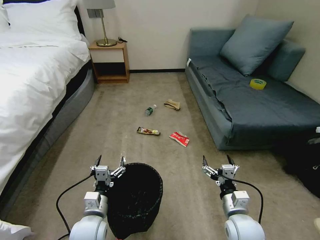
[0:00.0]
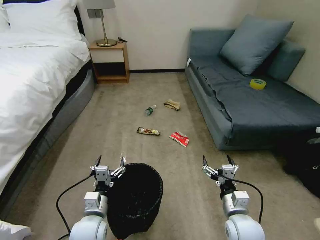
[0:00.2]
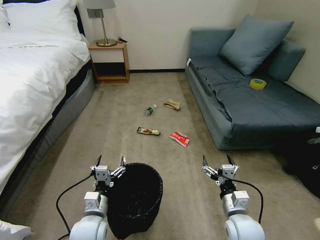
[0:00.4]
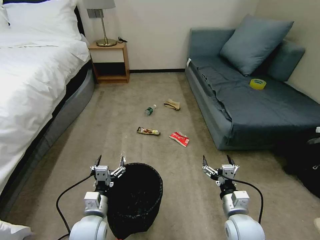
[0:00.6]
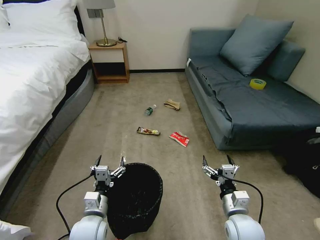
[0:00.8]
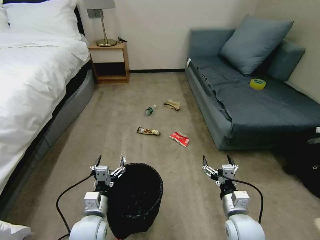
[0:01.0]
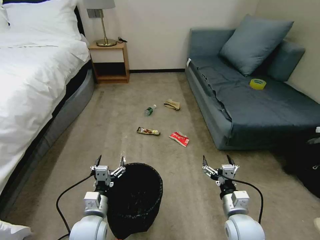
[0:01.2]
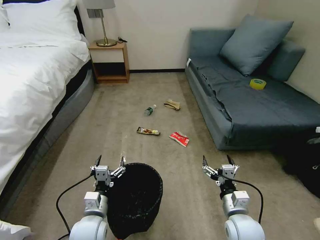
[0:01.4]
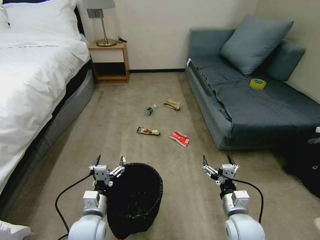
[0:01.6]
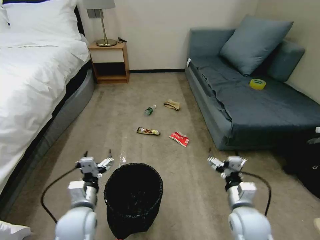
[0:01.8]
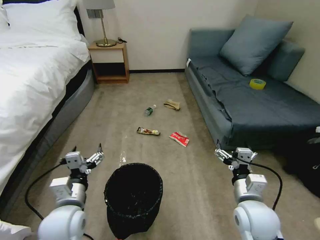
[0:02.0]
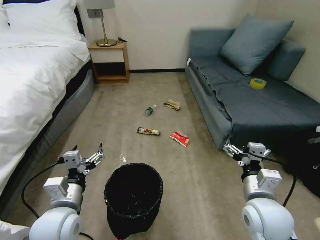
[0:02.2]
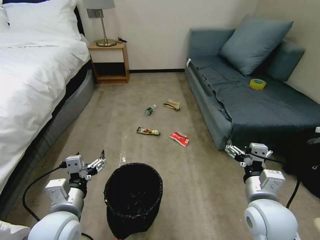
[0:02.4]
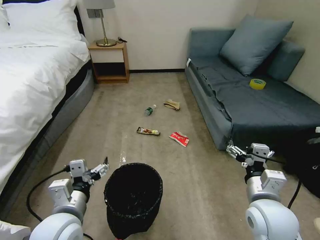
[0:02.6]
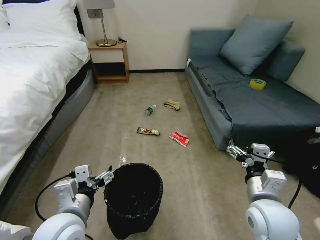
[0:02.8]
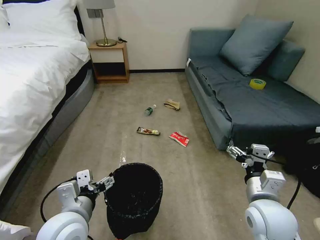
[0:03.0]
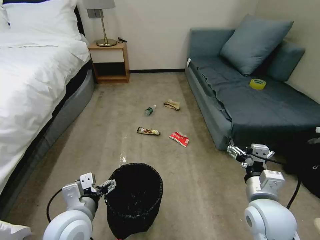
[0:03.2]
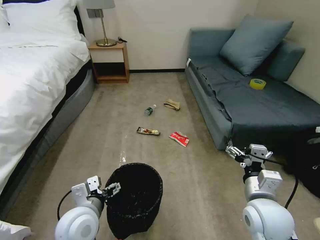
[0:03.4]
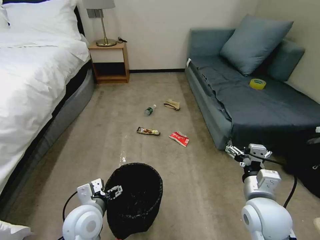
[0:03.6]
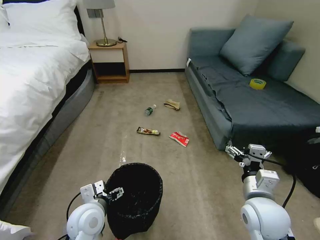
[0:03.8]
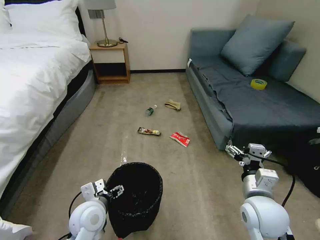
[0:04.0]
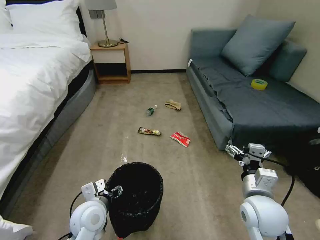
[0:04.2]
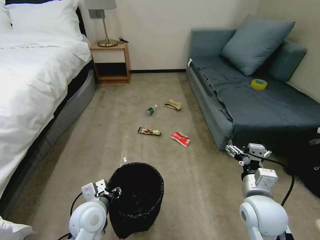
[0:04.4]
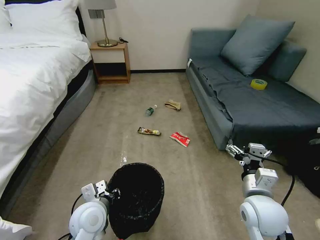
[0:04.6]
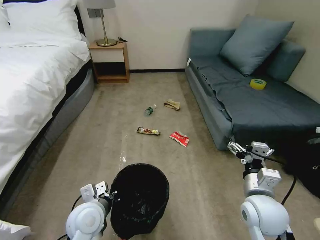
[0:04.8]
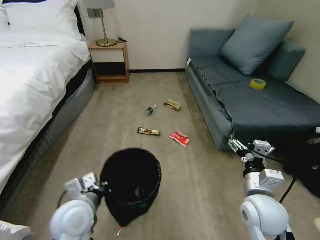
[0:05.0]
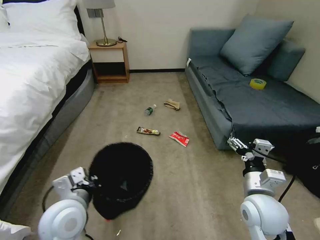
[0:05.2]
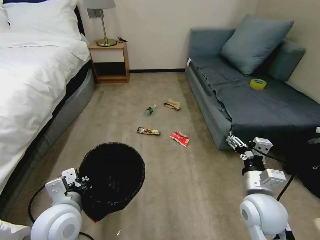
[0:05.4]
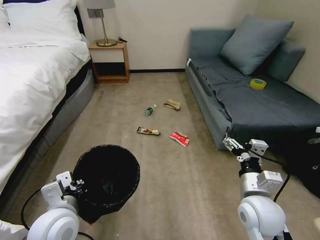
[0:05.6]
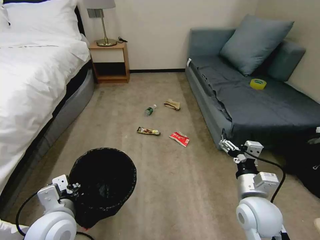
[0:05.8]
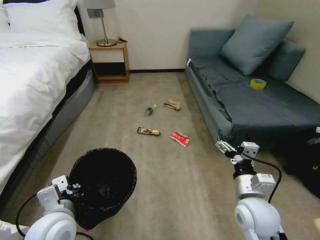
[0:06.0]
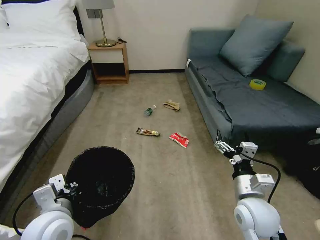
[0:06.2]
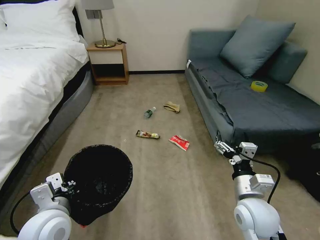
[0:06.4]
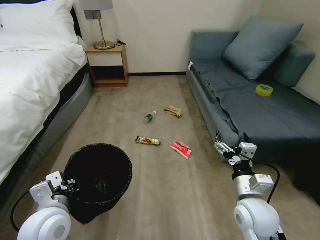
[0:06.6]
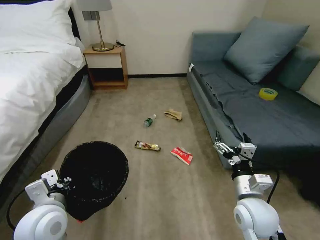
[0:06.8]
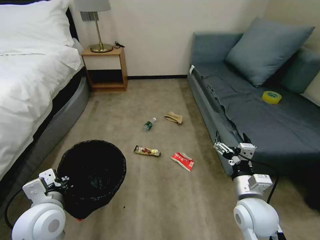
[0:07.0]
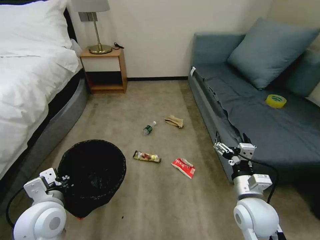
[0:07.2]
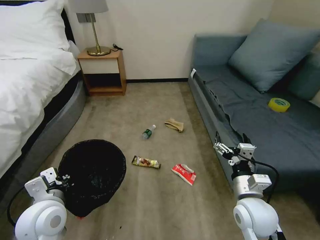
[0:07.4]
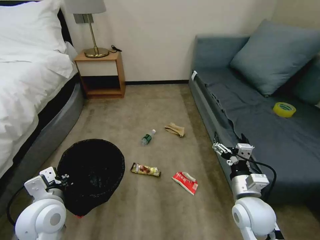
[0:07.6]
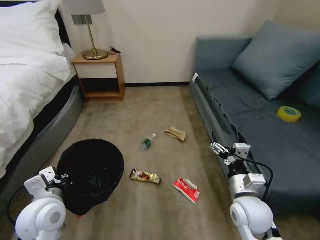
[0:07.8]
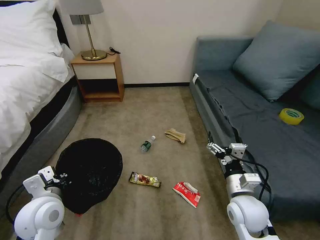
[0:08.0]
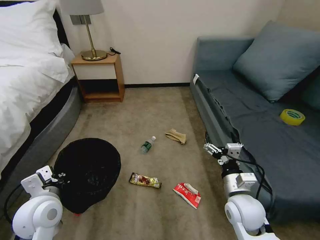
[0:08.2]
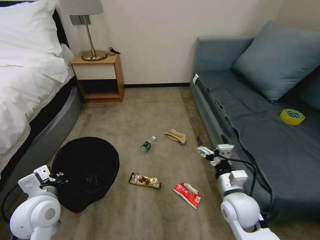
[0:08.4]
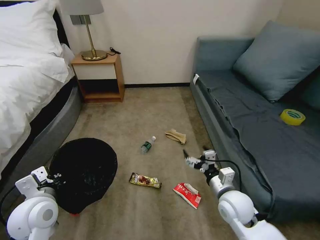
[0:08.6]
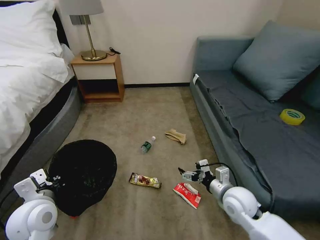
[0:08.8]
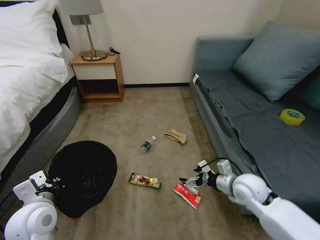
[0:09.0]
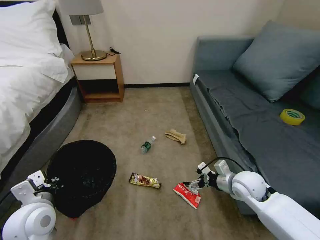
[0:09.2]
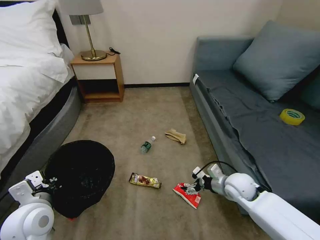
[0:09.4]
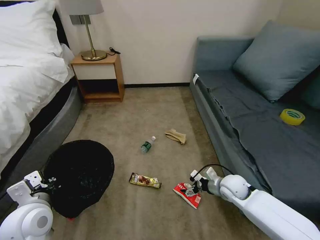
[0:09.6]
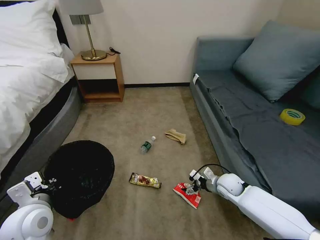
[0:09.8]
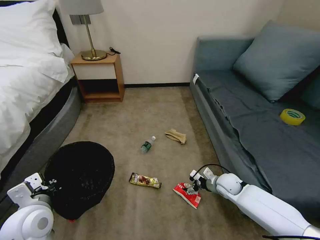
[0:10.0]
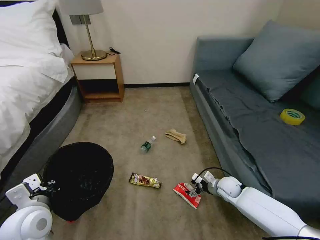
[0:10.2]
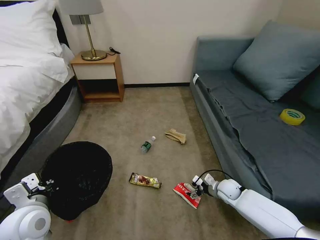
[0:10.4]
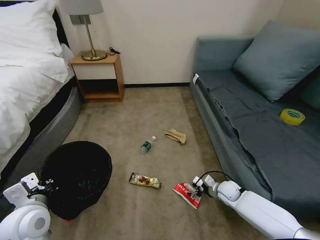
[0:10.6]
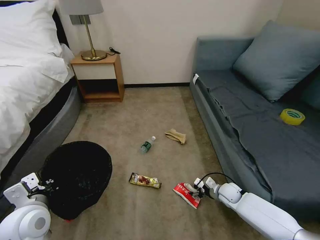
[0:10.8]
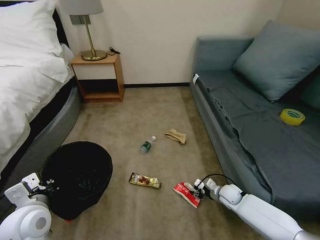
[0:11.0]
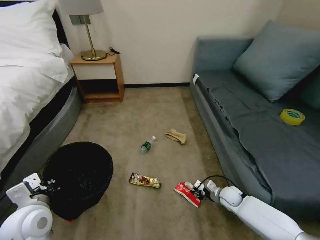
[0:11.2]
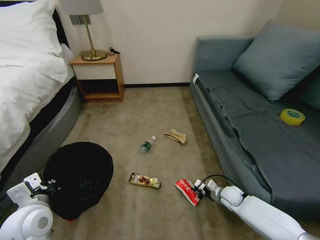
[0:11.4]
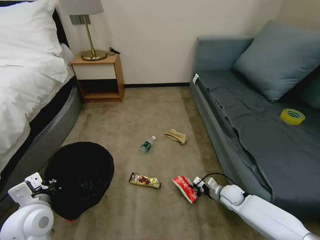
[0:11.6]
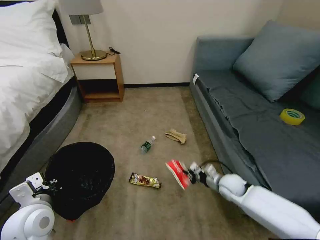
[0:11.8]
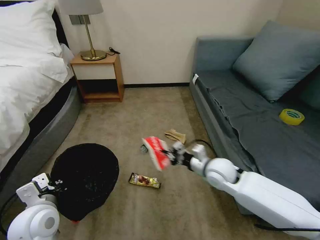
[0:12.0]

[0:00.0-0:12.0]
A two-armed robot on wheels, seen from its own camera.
Task of the whole recording: Pick up the trash bin, then pick up the garbage on the floor and place it into the trash bin.
0:01.6 to 0:03.0: Both grippers travel together upward, roughly 15 cm.
0:03.0 to 0:04.4: The left gripper is displaced downward and forward by some 10 cm, and closes its fingers.
0:04.4 to 0:06.0: The left gripper goes roughly 10 cm upward and backward, and closes.
0:06.0 to 0:07.6: The left gripper shifts by about 5 cm.
0:07.6 to 0:09.0: The right gripper shifts some 10 cm forward.
0:09.0 to 0:10.4: The right gripper moves downward, some 20 cm.
0:10.4 to 0:12.0: The right gripper moves upward and to the left, some 20 cm, and closes.

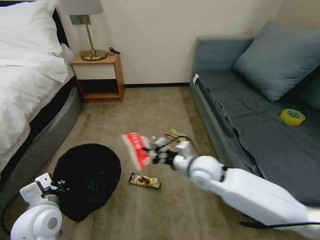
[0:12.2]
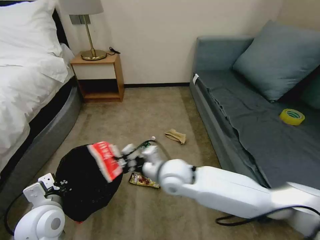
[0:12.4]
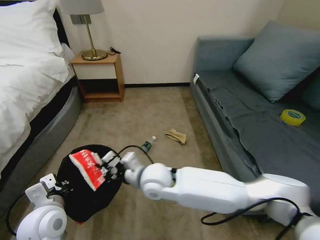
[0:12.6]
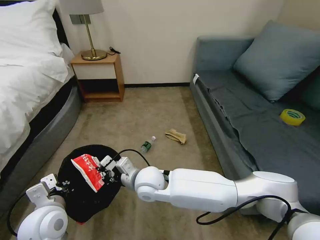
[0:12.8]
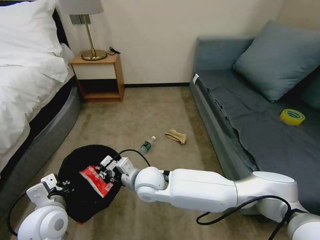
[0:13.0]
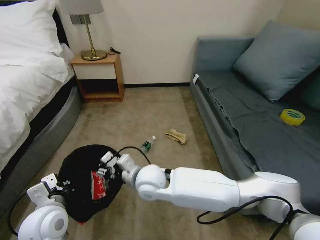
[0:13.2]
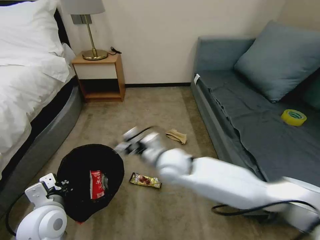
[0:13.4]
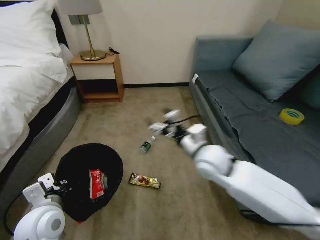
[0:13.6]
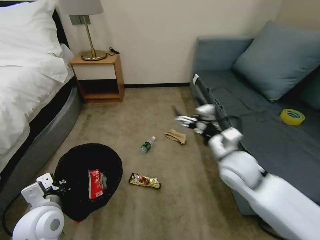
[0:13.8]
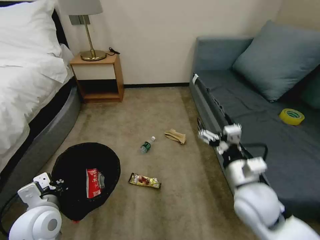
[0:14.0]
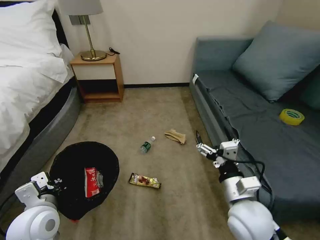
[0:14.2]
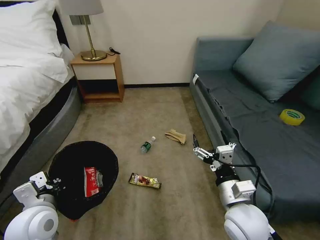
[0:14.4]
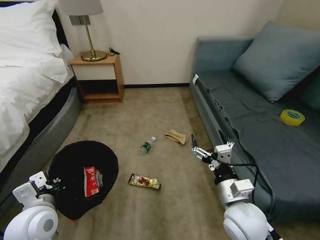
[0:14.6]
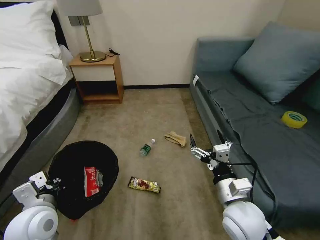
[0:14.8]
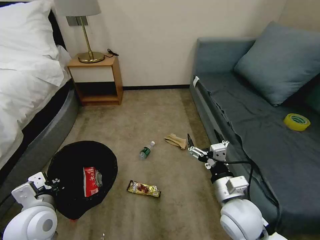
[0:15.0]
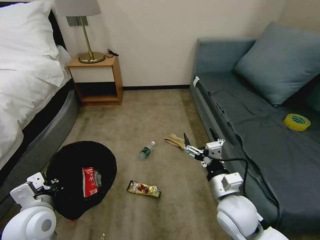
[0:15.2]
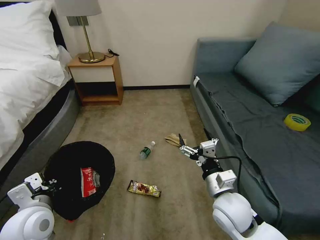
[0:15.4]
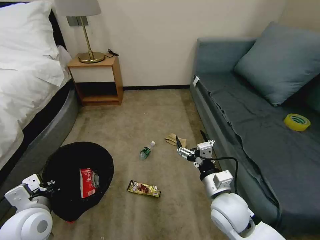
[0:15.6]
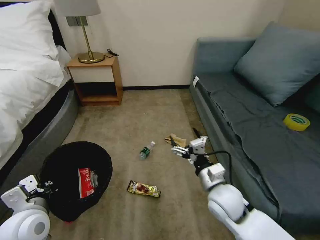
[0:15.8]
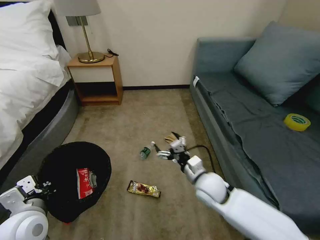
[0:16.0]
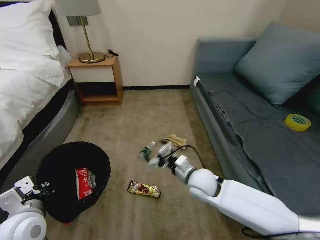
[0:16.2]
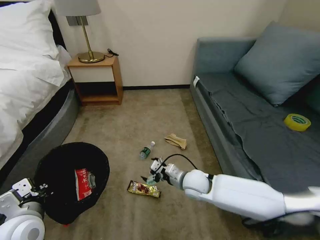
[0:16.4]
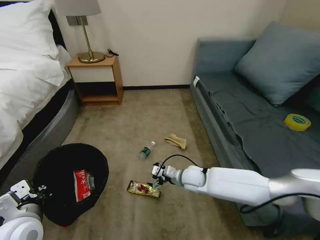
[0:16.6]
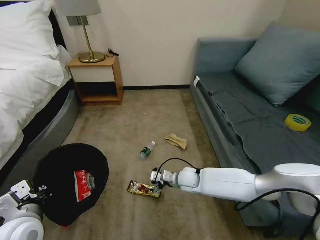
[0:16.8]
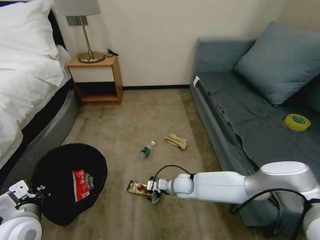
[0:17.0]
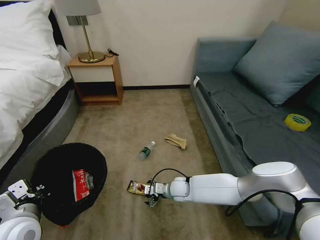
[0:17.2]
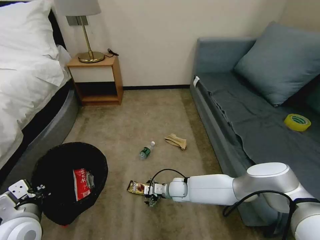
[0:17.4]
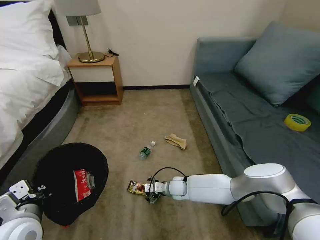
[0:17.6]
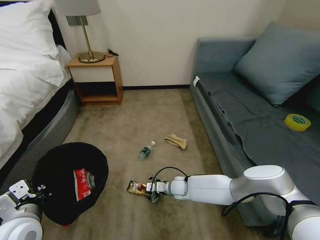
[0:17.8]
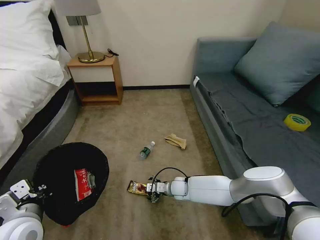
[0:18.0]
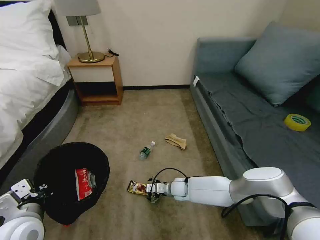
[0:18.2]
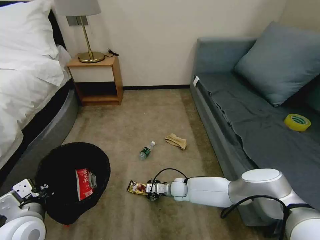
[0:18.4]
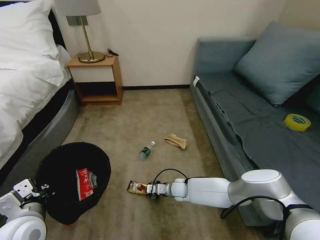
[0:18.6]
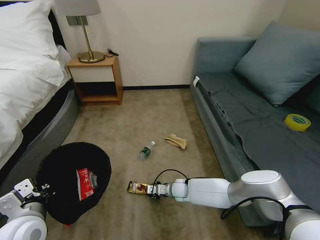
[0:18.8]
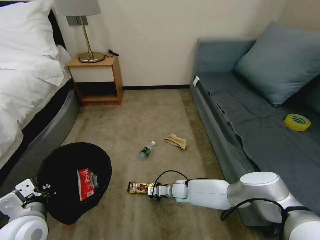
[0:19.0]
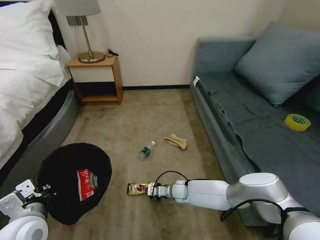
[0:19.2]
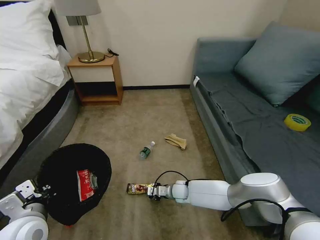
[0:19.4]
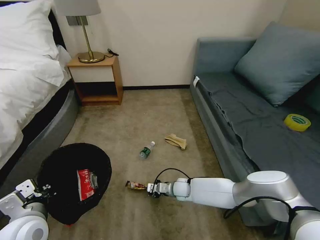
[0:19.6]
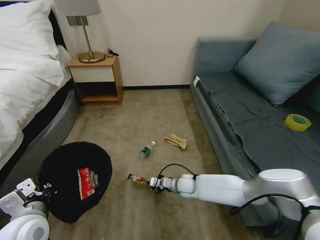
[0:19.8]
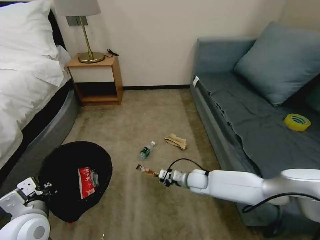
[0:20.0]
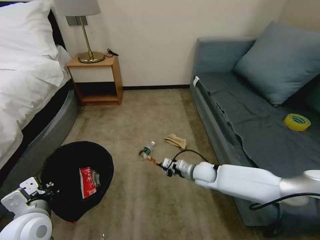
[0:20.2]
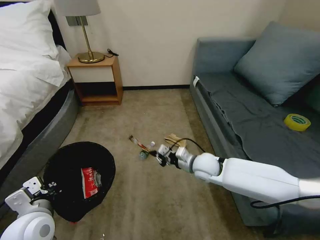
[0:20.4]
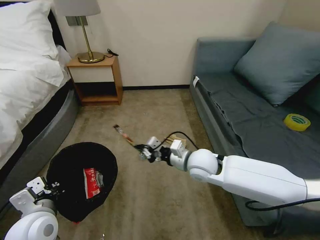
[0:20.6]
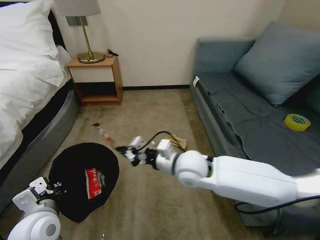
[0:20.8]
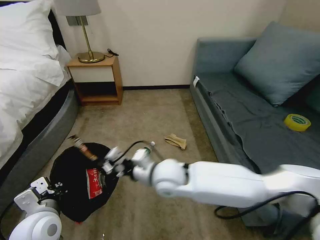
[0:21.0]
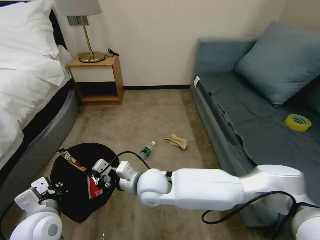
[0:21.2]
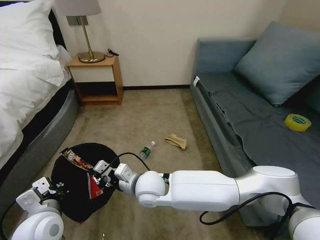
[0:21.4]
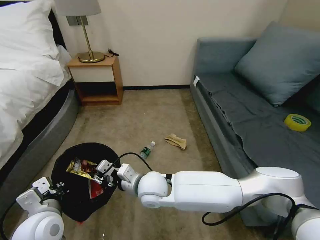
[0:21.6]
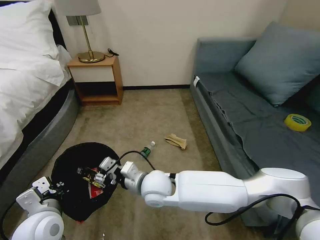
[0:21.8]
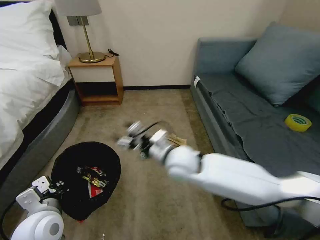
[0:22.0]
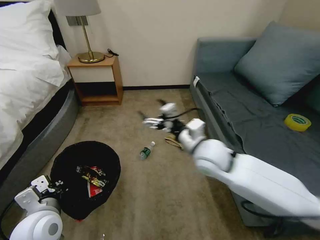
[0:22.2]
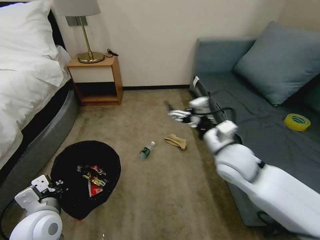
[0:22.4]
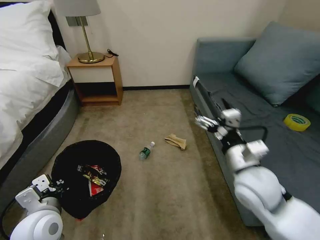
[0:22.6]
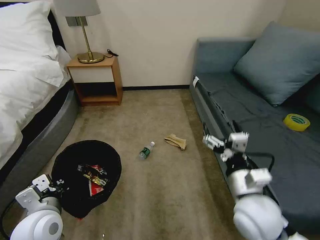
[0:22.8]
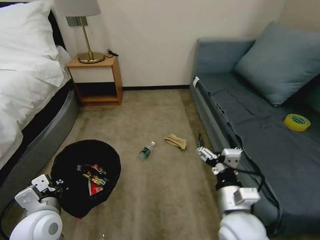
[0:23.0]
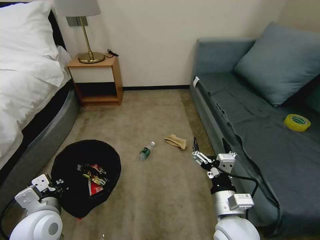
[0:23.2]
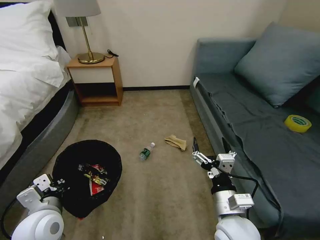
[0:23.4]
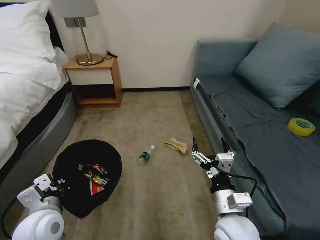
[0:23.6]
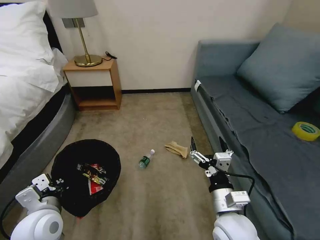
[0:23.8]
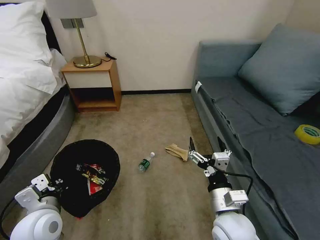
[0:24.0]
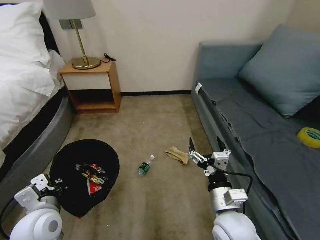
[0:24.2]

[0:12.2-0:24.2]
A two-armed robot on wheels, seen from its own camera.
Task of the whole recording: Pick up the trash bin, then pick up the garbage on the floor and place it into the trash bin.
0:12.2 to 0:13.8: The right gripper is displaced upward by roughly 5 cm, travels to the left and back again, roughly 20 cm each way, and opens up.
0:13.8 to 0:15.2: The right gripper travels backward and downward by roughly 10 cm.
0:15.2 to 0:16.6: The right gripper is displaced forward and downward by some 20 cm.
0:16.6 to 0:18.2: The right gripper shifts roughly 10 cm downward.
0:18.2 to 0:19.8: The right gripper closes its fingers.
0:19.8 to 0:21.2: The right gripper shifts roughly 30 cm upward, to the left and backward.
0:21.2 to 0:22.6: The right gripper moves to the right, some 25 cm, and opens.
0:22.6 to 0:24.2: The right gripper goes roughly 15 cm downward, backward and to the left.
